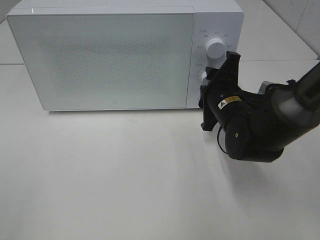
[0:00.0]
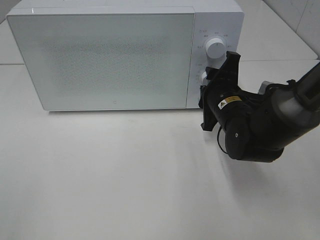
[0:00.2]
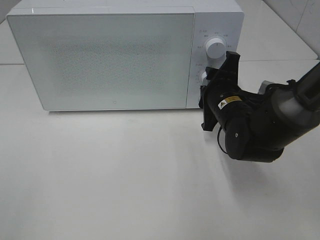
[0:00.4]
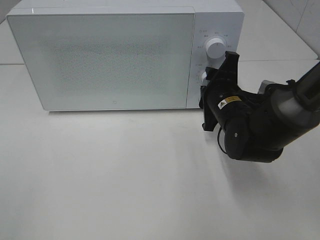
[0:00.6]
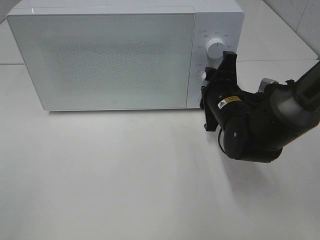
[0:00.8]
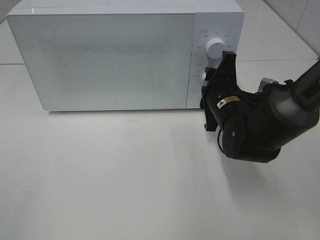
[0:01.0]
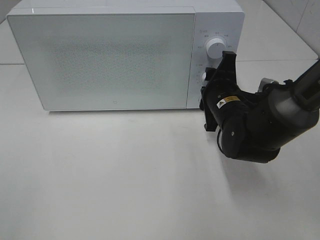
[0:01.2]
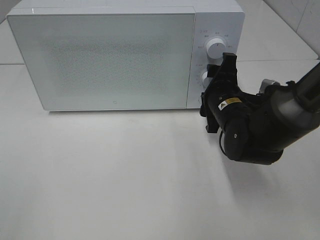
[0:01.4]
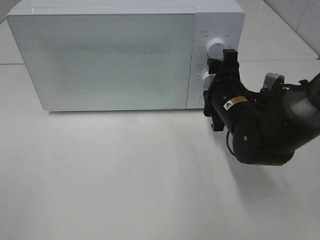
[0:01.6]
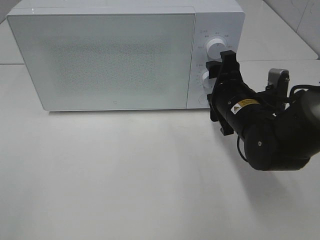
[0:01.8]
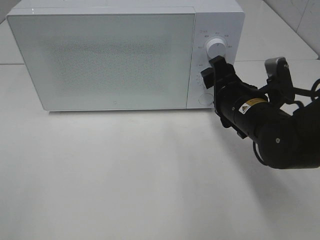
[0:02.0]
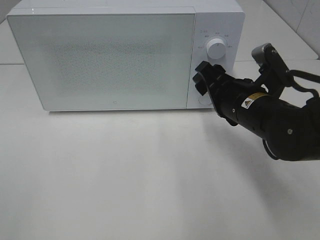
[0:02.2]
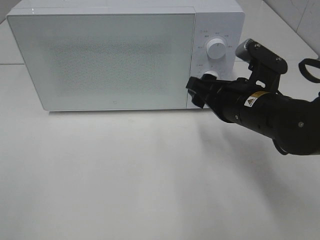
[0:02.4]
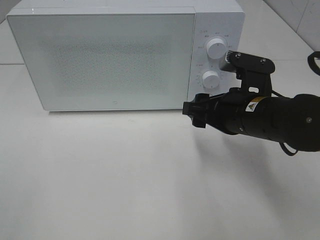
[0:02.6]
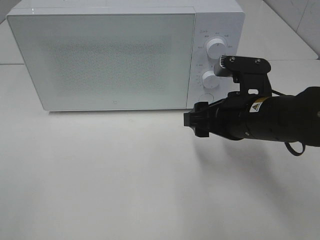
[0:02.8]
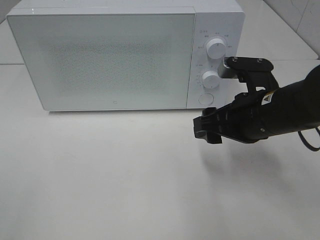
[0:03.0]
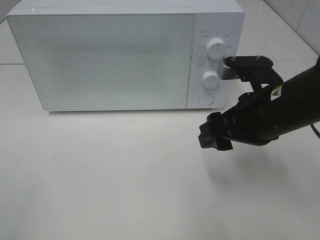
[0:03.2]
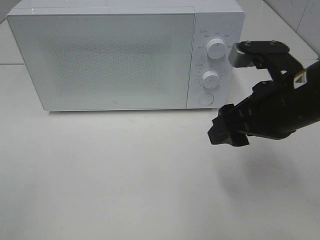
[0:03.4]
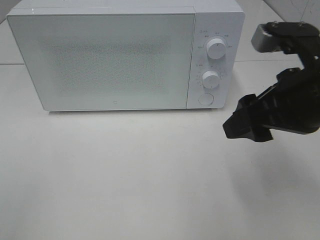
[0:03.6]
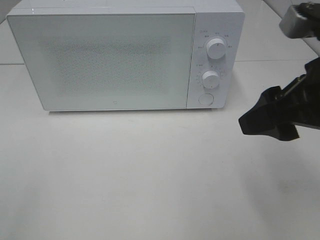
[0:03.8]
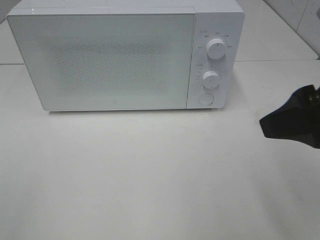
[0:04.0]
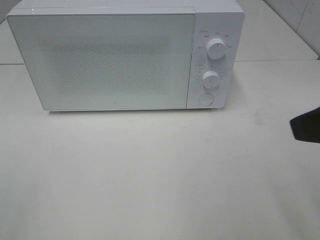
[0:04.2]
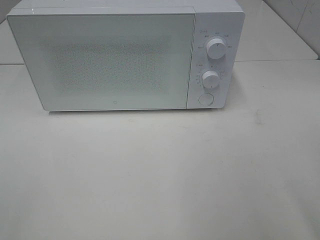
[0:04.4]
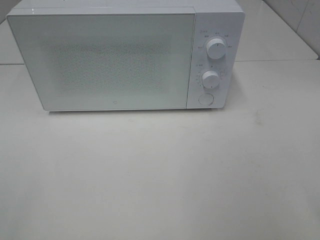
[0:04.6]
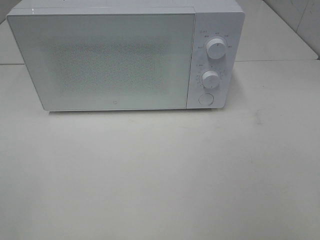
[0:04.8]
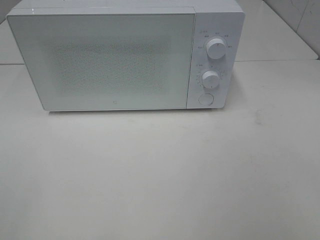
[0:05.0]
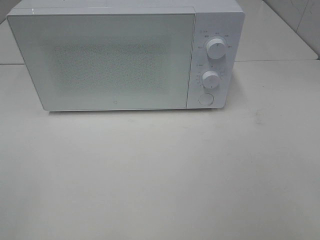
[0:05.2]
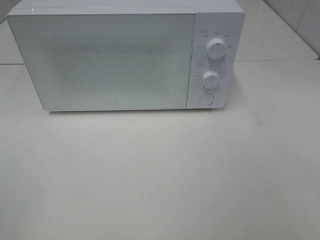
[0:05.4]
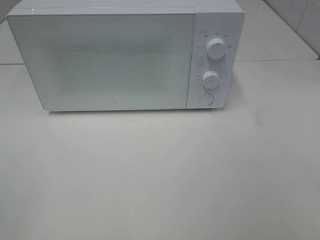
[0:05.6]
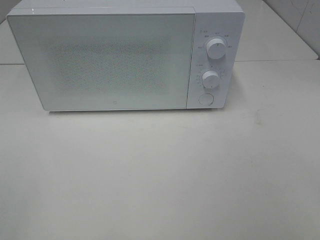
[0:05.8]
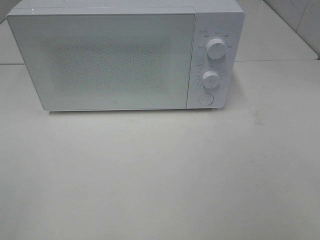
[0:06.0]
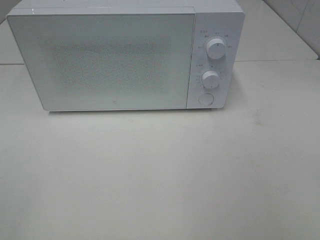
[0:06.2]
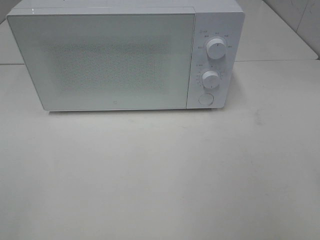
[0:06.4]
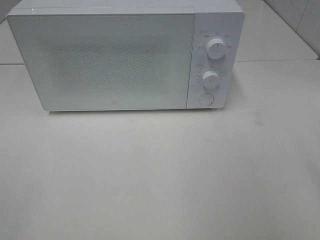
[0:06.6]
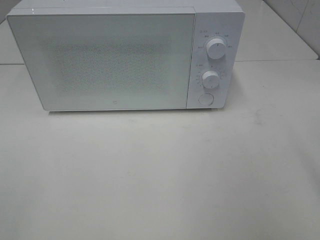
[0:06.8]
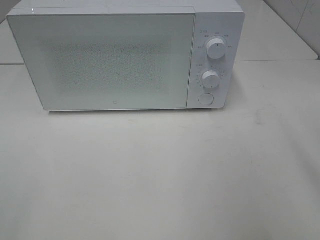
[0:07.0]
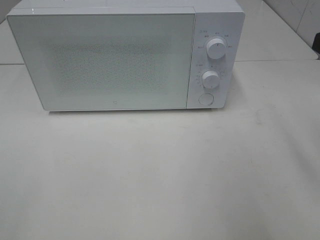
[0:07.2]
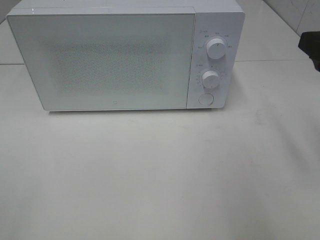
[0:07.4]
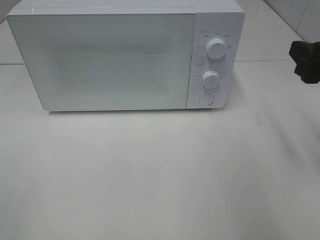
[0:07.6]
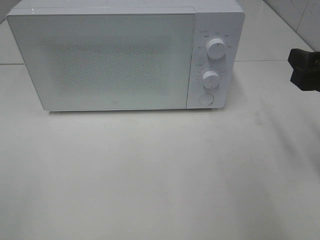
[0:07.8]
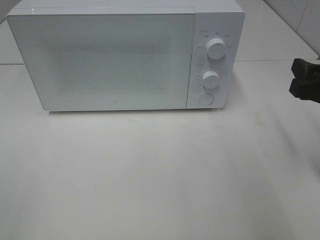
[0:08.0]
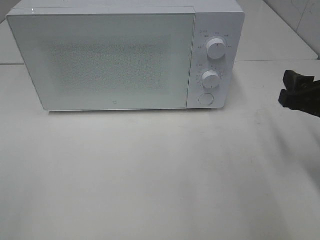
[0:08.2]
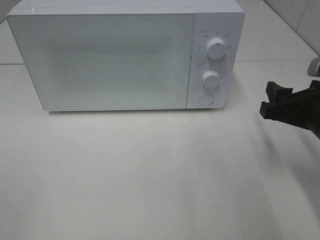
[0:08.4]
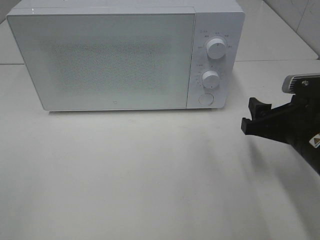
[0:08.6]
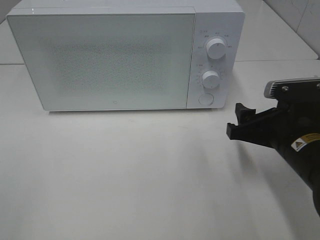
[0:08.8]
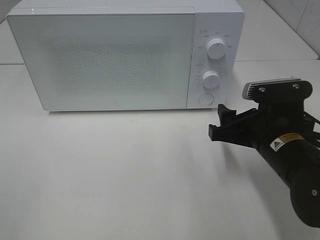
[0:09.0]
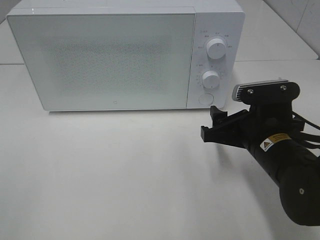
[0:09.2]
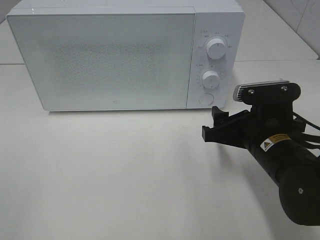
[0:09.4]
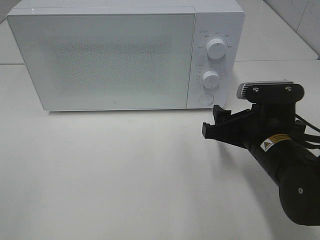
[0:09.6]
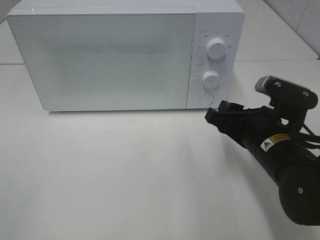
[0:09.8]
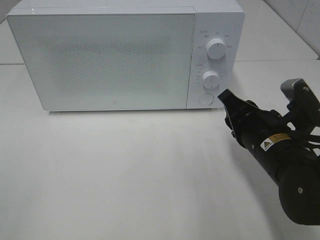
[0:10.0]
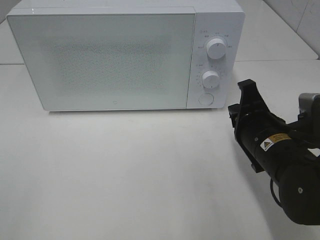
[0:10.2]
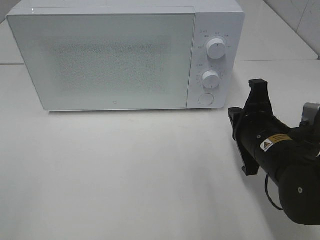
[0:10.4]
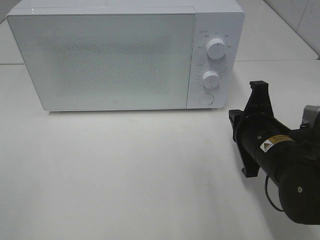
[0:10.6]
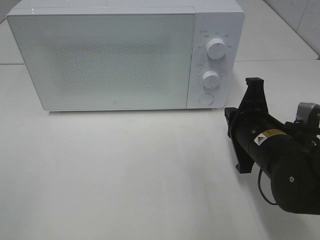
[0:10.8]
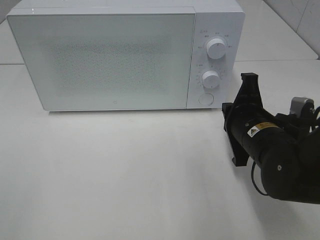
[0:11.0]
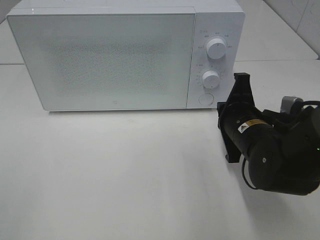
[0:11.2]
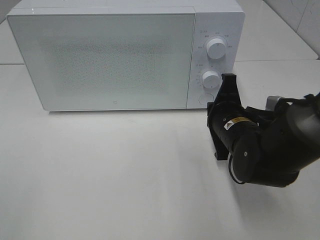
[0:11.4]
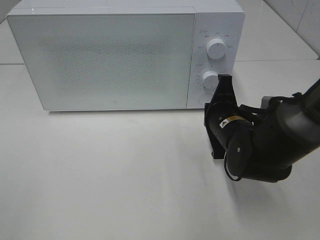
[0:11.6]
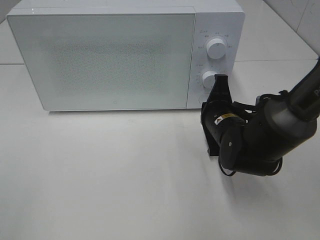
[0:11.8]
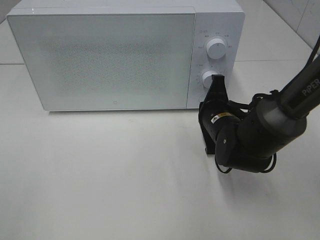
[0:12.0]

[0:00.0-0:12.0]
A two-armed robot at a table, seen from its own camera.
Task of the whole recording: Heat the burger.
0:00.0 to 0:01.6: The grippers stay close to where they were, moving slightly.
0:01.6 to 0:03.0: The right gripper shifts approximately 10 cm backward and upward.
0:03.0 to 0:04.4: The right gripper shifts some 20 cm backward, upward and to the right.
0:06.0 to 0:07.6: The right gripper is displaced forward by roughly 20 cm.
0:07.6 to 0:09.0: The right gripper moves downward and to the left, approximately 15 cm.
0:09.0 to 0:10.4: The right gripper closes its fingers.
0:10.4 to 0:12.0: The right gripper is displaced forward by some 10 cm.

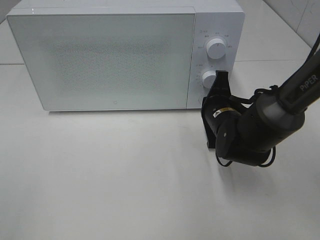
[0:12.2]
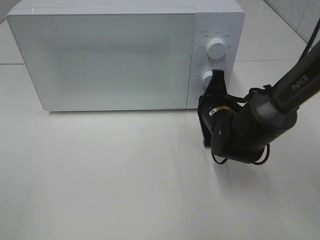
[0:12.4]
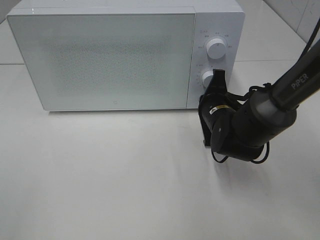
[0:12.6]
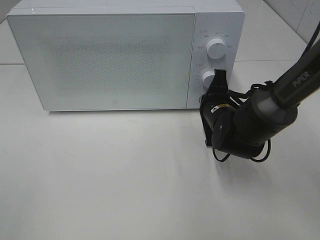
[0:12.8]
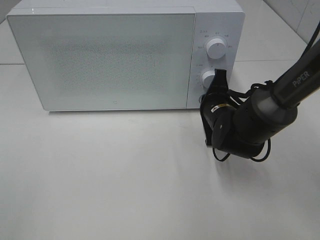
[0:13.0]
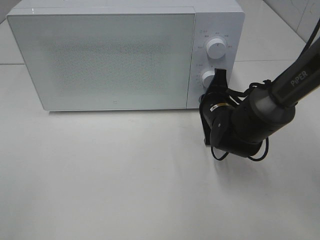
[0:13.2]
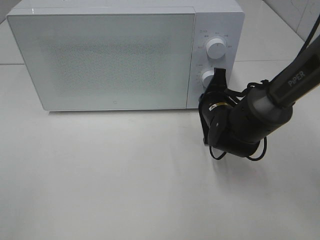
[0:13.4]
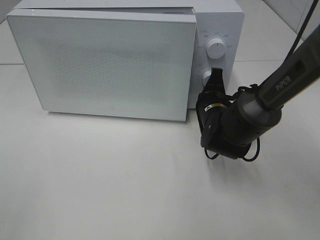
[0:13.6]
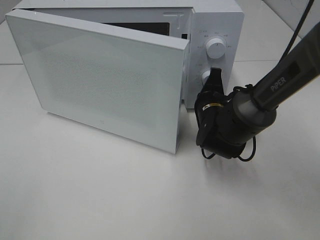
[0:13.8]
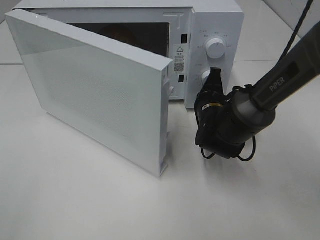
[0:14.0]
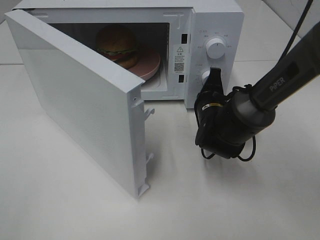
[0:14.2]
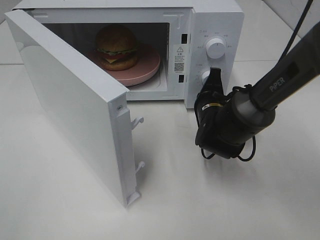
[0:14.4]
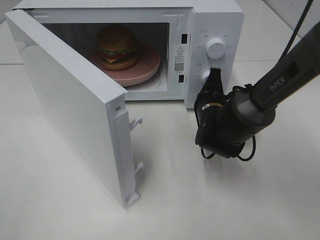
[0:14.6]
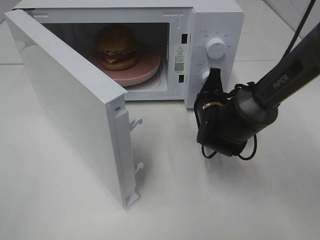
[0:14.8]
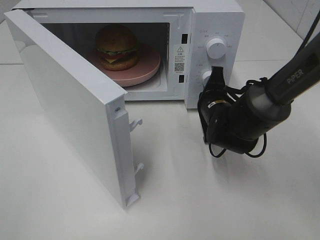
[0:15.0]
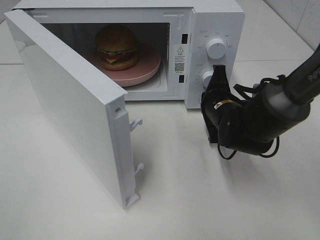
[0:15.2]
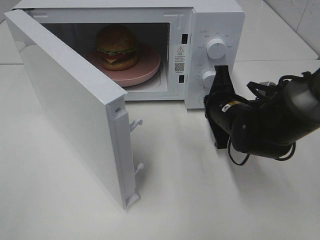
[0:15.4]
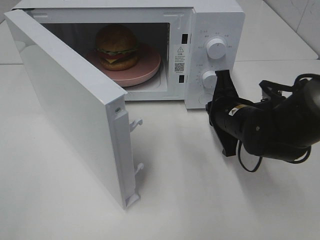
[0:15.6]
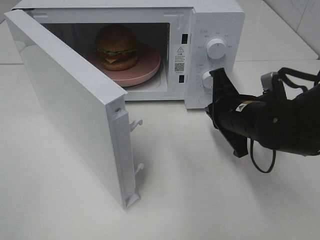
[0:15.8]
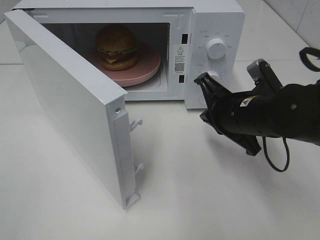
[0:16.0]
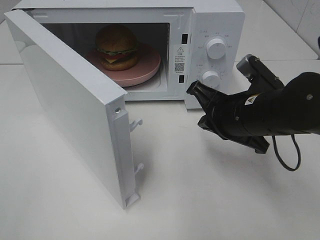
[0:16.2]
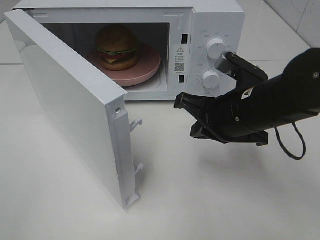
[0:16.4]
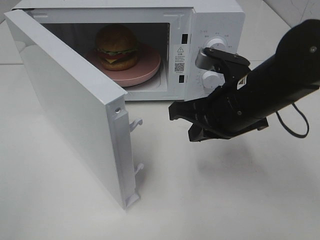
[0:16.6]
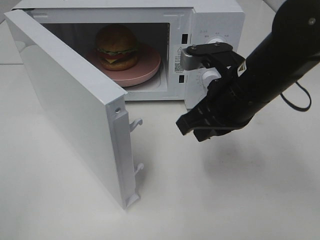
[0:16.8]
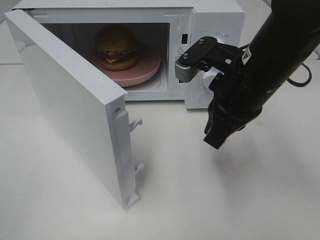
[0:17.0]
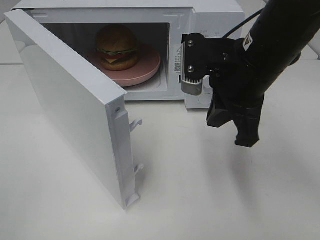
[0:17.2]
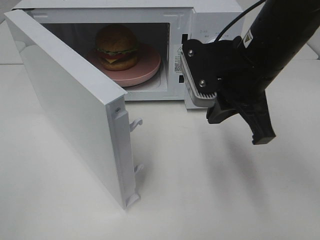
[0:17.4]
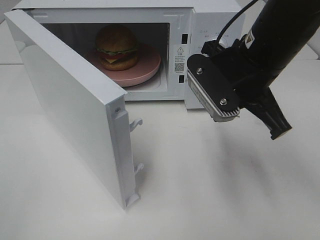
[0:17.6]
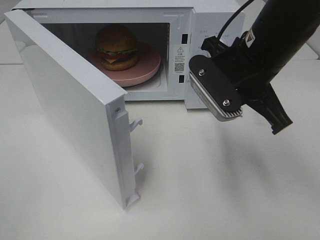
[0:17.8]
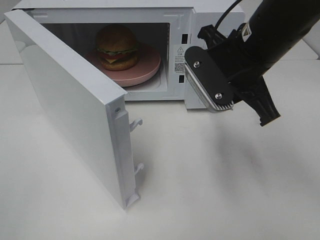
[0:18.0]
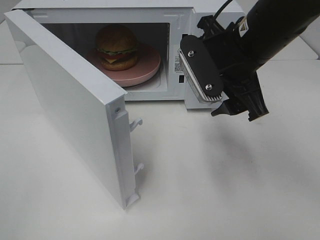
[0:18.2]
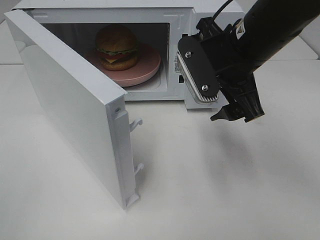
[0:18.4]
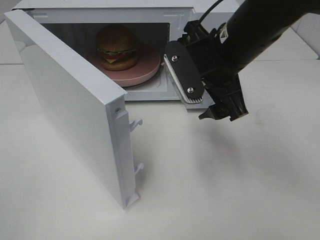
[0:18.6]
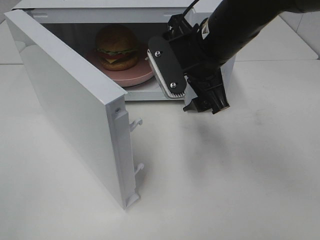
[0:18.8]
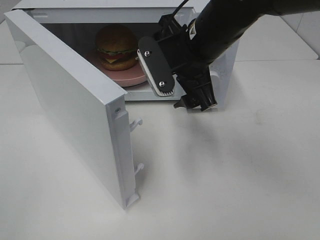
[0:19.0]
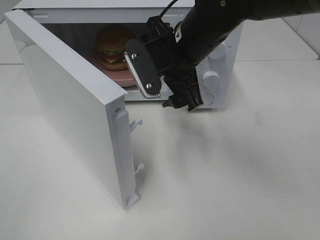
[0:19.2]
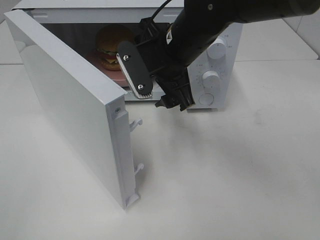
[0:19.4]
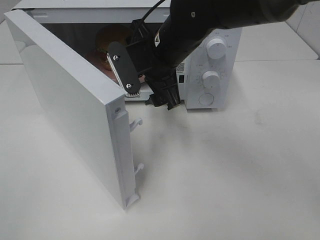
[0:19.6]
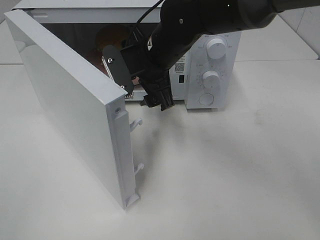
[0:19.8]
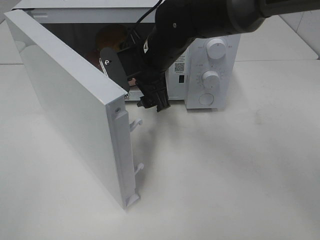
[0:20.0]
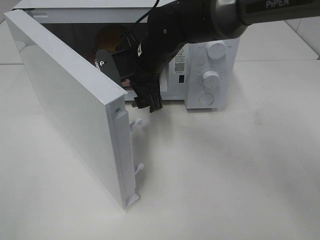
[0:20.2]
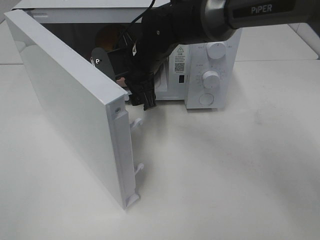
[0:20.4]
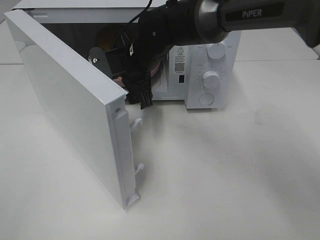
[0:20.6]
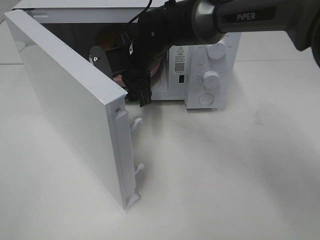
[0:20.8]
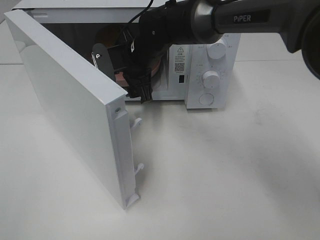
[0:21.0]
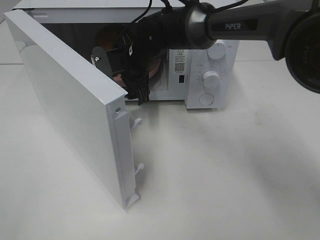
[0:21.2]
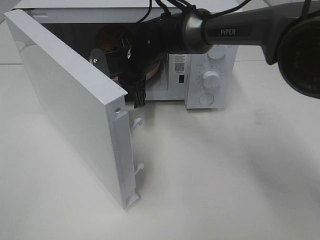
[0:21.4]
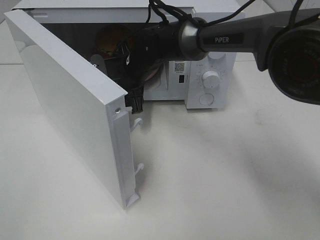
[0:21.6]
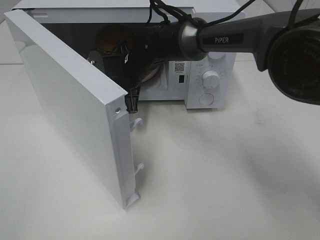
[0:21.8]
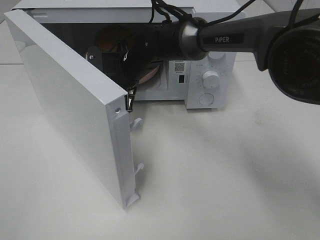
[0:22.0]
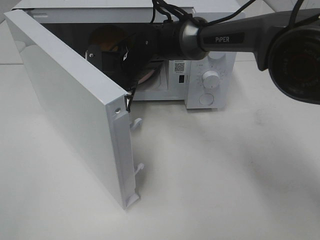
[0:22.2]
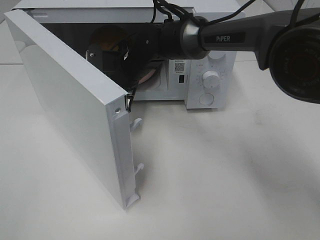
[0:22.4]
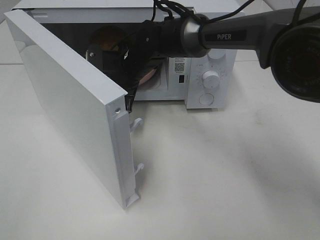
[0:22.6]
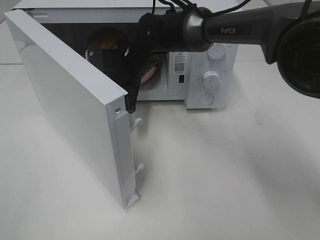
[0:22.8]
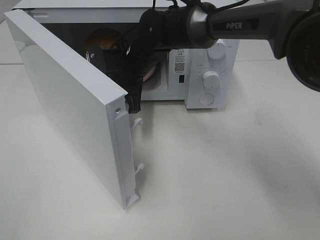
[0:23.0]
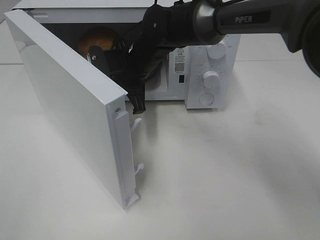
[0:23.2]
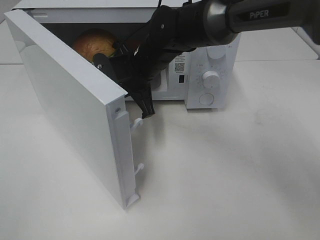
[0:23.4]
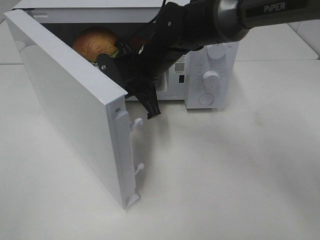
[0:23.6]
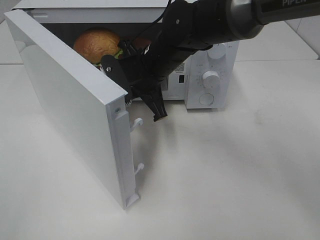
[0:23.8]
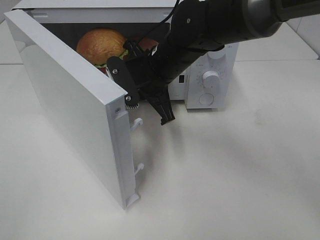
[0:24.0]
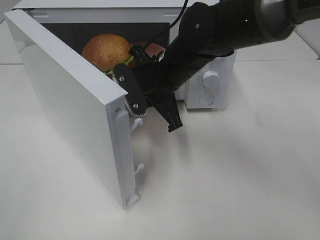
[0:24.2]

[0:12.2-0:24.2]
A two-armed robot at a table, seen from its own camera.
Task of the whole recording: Heat the burger.
Step, 0:12.2 to 0:15.2: Right hand: press the switch.
Step, 0:15.4 to 0:22.2: Right hand: grab the plate with the hamburger.
0:12.2 to 0:13.8: The grippers make only small movements.
0:15.2 to 0:16.6: The right gripper heads upward and backward, covering about 15 cm.
0:16.6 to 0:18.2: The right gripper is displaced upward by approximately 5 cm, and opens.
0:18.2 to 0:19.8: The right gripper moves to the left, forward and downward, about 15 cm.
0:19.8 to 0:21.2: The right gripper travels forward by roughly 5 cm.
0:21.2 to 0:22.6: The right gripper closes.
0:22.6 to 0:24.2: The right gripper heads backward and to the right, covering about 10 cm.
